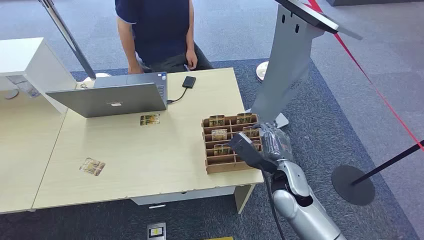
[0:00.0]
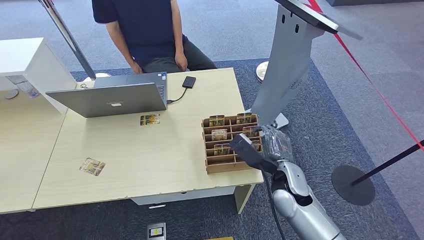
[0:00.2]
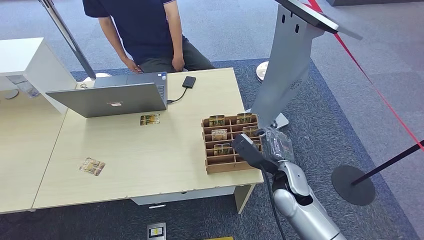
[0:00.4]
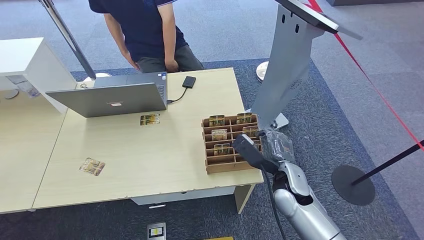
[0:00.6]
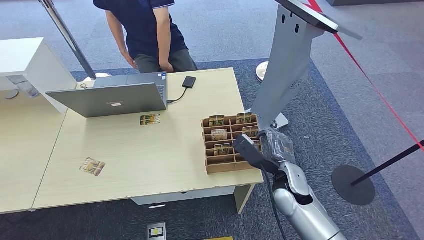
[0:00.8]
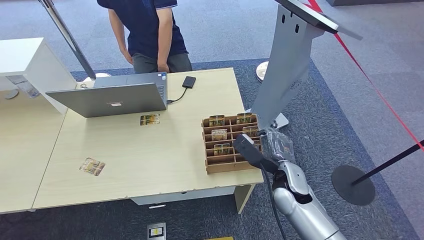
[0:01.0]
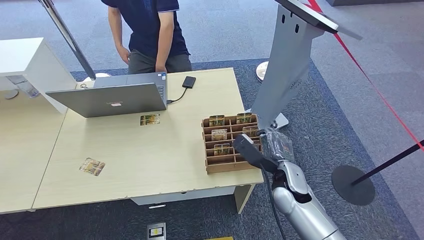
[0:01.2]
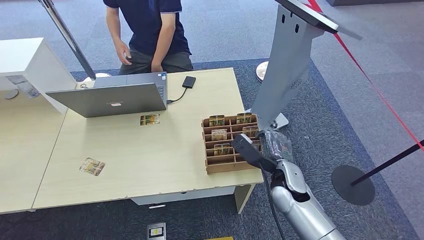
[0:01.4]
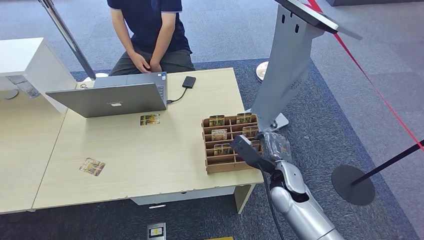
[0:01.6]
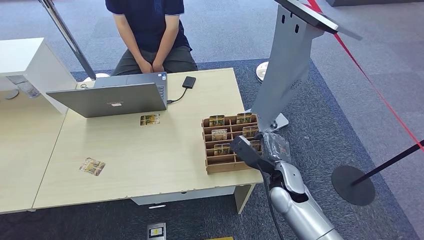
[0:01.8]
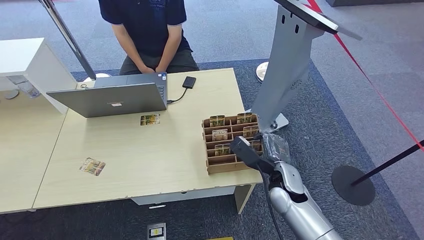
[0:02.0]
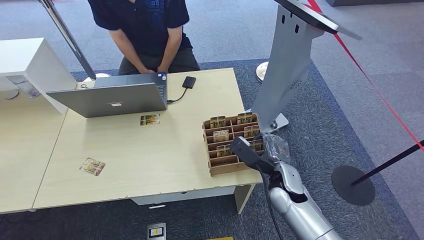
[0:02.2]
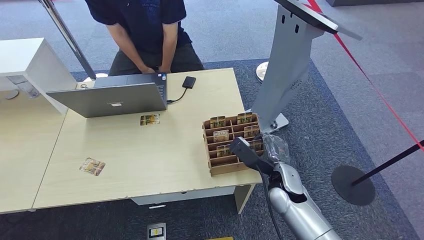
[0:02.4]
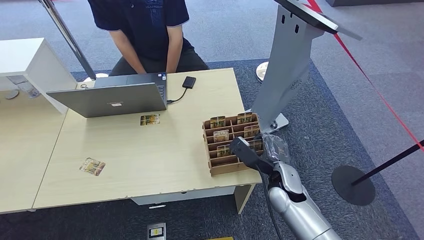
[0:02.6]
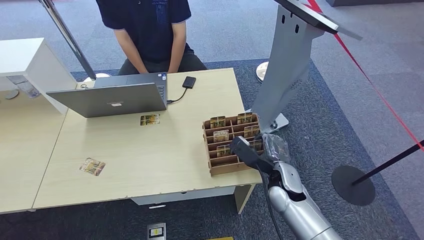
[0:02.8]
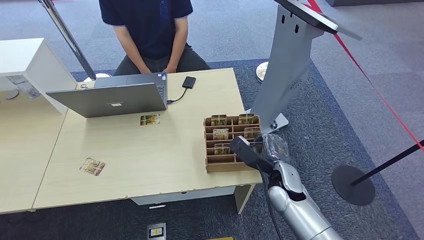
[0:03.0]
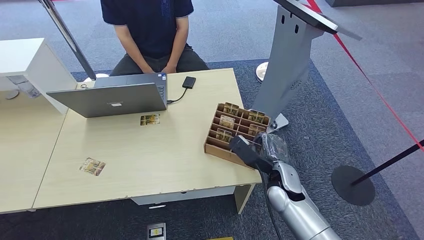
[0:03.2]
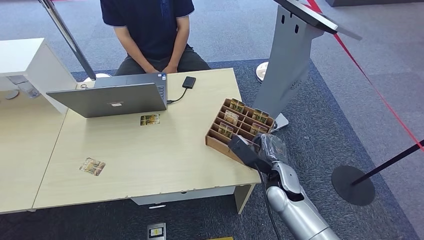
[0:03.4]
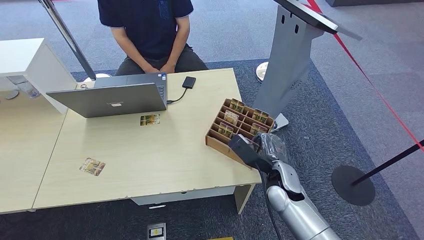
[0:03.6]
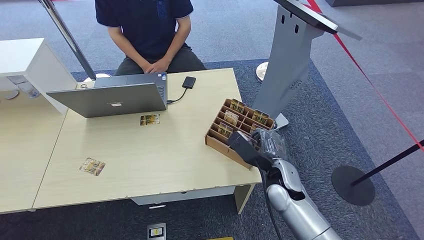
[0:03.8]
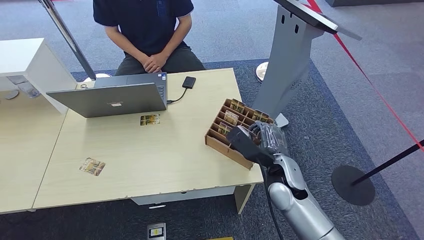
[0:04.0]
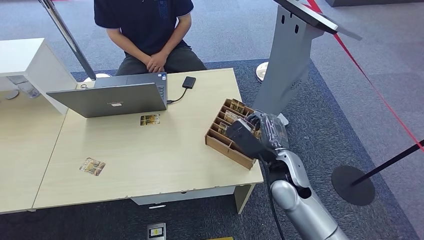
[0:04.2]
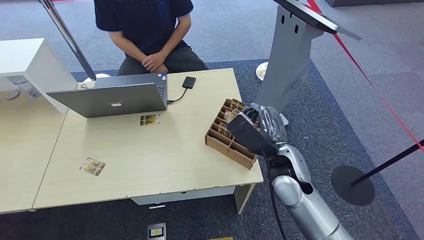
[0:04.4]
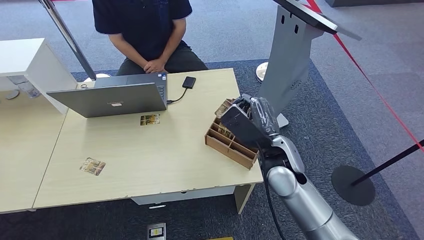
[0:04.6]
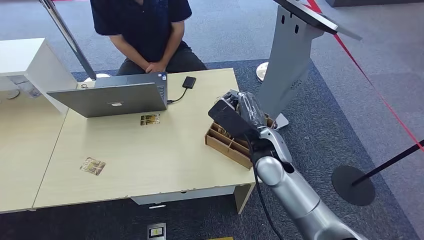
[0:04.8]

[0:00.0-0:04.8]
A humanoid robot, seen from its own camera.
Step, 0:00.0 to 0:04.6: Pick up the room card from the card holder.
0:01.6 to 0:03.2: Both hands stay put.
0:03.2 to 0:04.8: The right hand moves upward and to the left, about 15 cm.

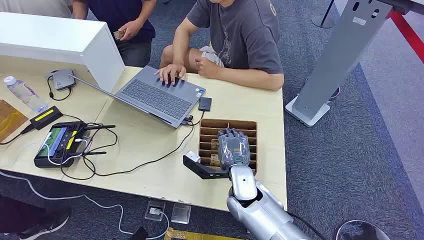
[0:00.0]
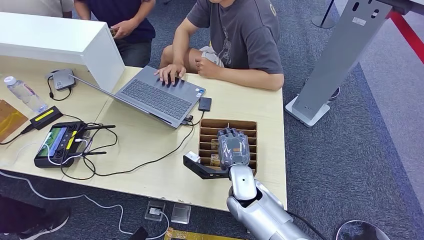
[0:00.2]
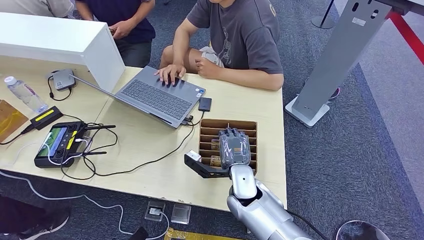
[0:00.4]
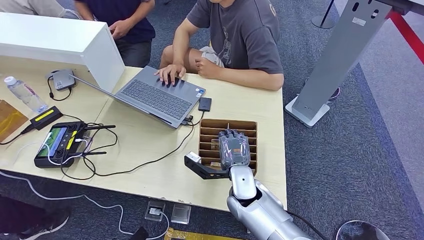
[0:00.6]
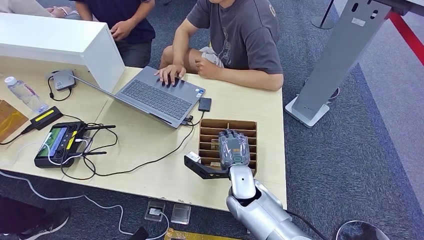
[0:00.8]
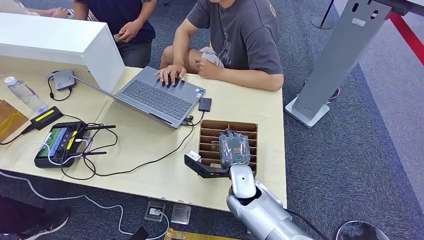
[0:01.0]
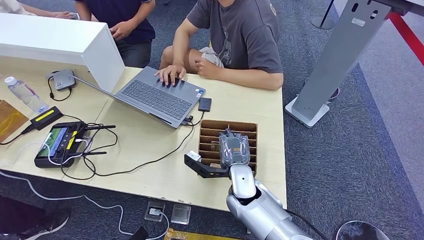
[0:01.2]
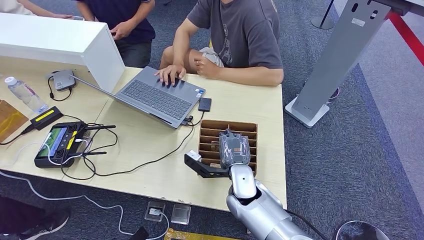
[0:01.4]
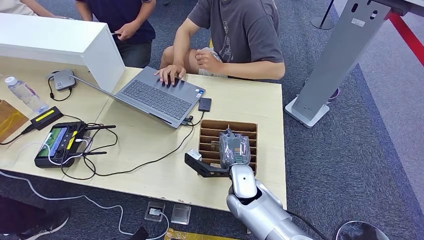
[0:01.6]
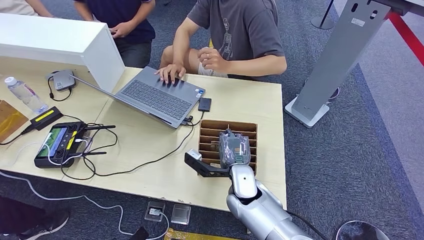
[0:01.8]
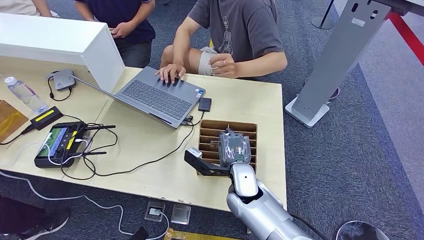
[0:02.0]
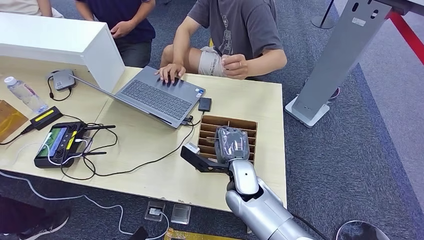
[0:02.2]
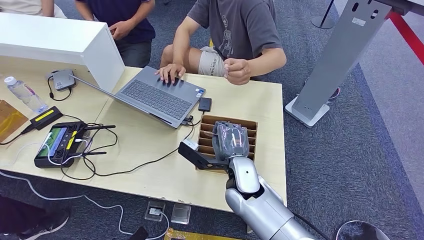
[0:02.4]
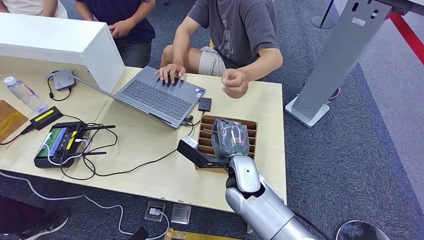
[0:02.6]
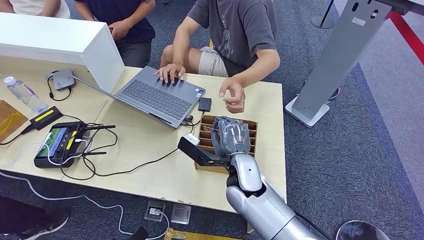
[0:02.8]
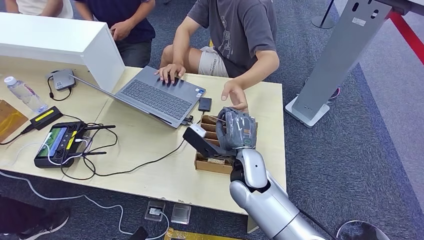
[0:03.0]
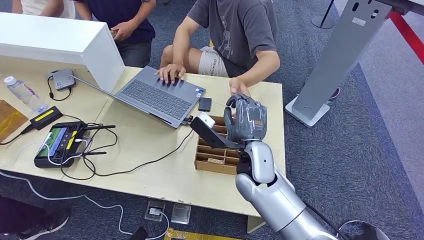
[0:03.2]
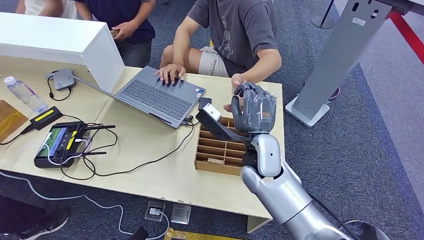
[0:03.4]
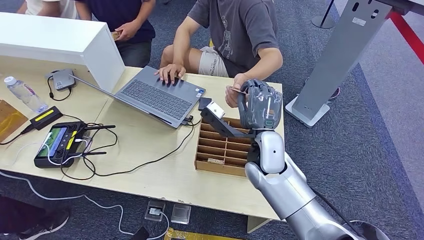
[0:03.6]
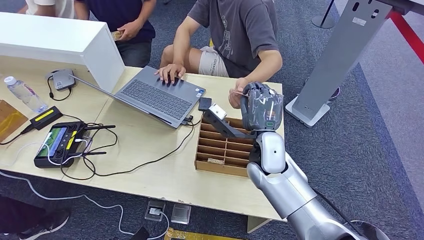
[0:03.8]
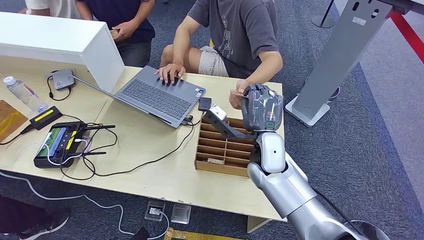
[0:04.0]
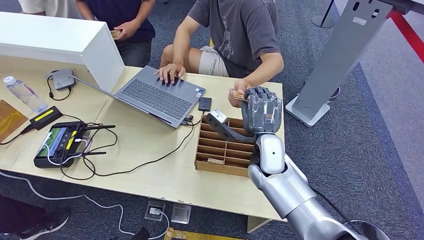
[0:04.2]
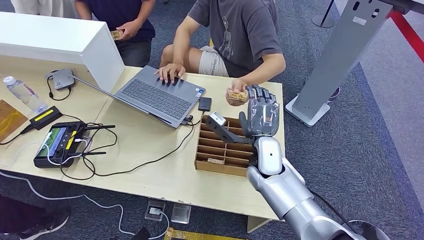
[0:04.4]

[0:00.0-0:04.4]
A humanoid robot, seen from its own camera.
Step, 0:00.0 to 0:02.6: Pick up the room card from the card holder.
Step, 0:03.0 to 0:04.4: Hand the room card to the target.
0:01.4 to 0:03.0: The right hand is displaced upward by approximately 10 cm.
0:03.0 to 0:04.4: The right hand shifts by approximately 5 cm.
